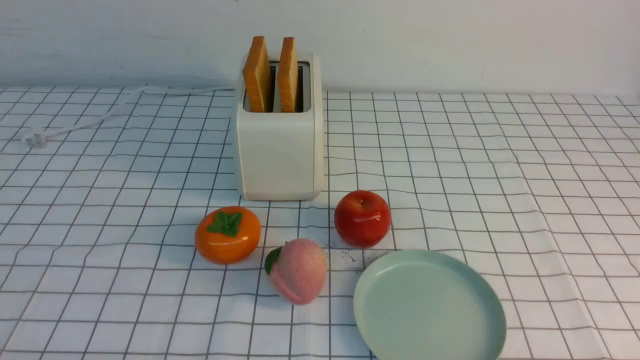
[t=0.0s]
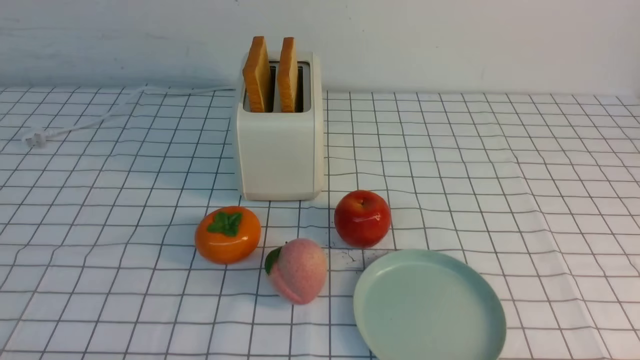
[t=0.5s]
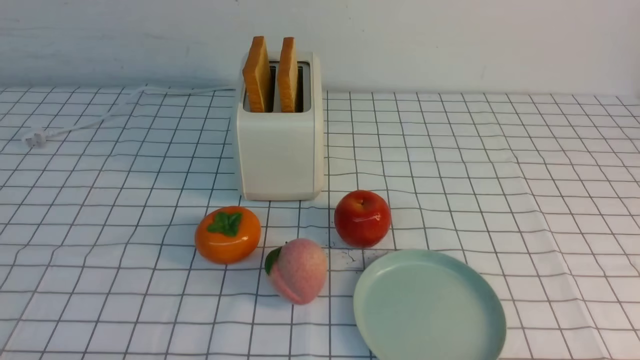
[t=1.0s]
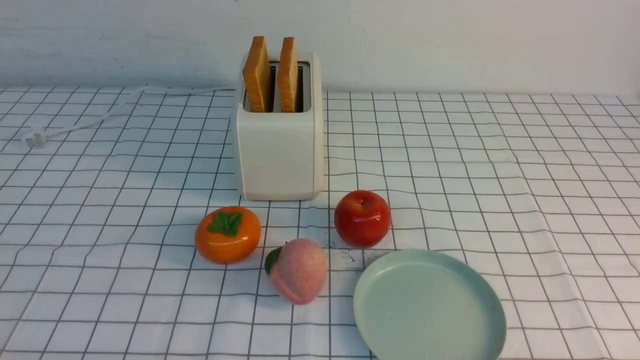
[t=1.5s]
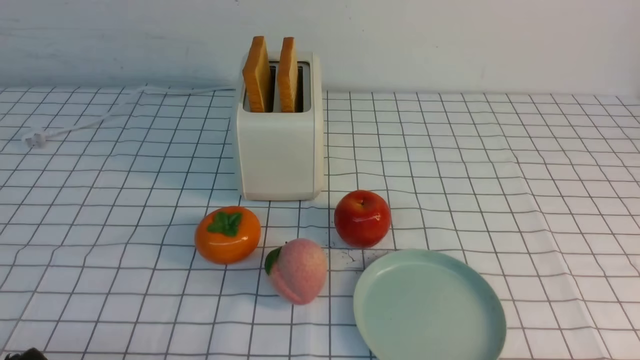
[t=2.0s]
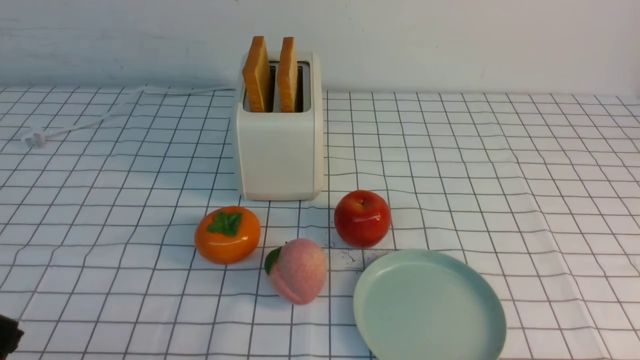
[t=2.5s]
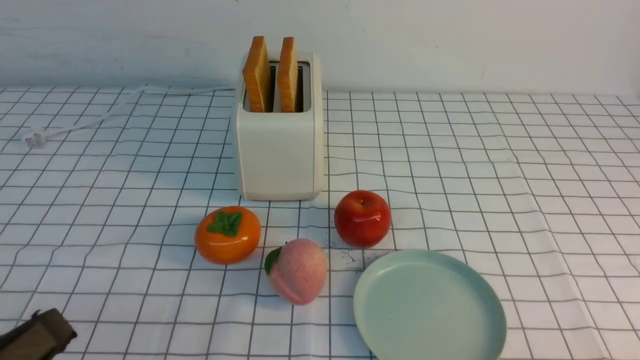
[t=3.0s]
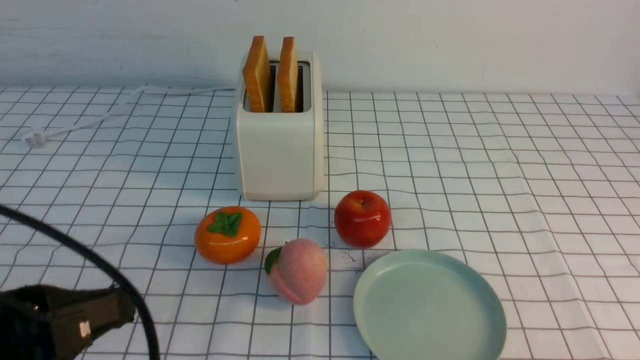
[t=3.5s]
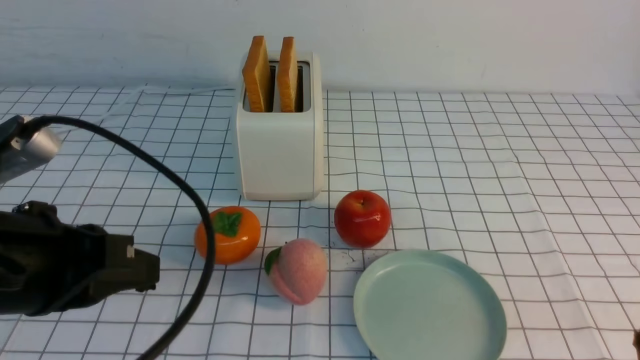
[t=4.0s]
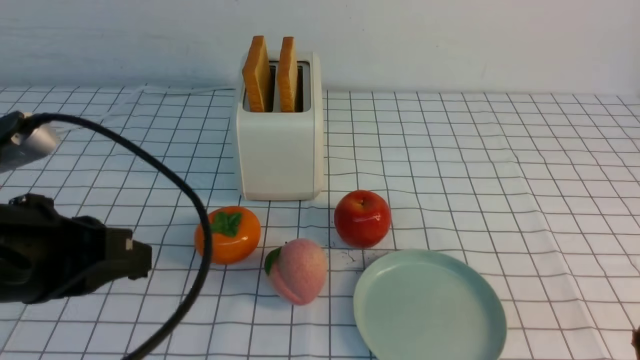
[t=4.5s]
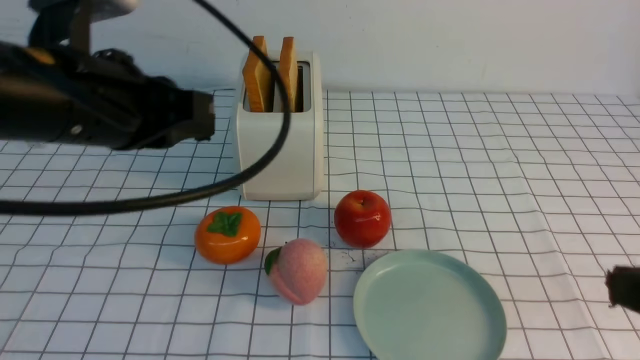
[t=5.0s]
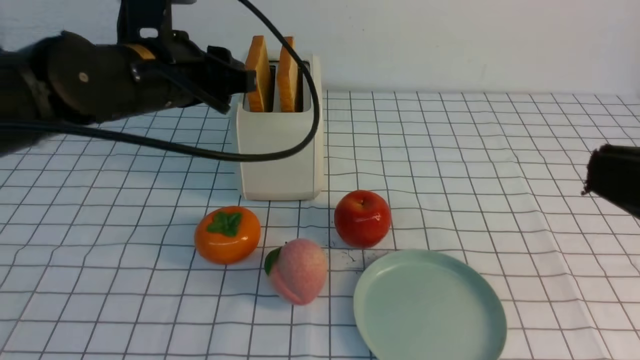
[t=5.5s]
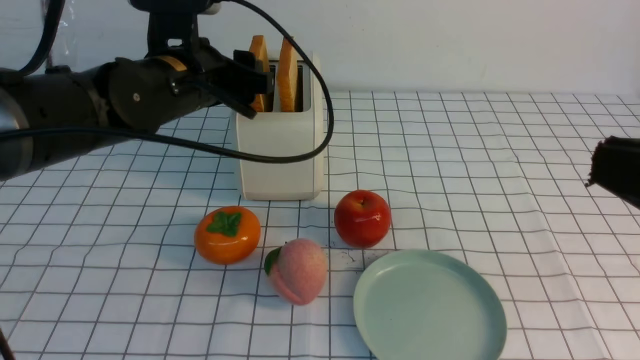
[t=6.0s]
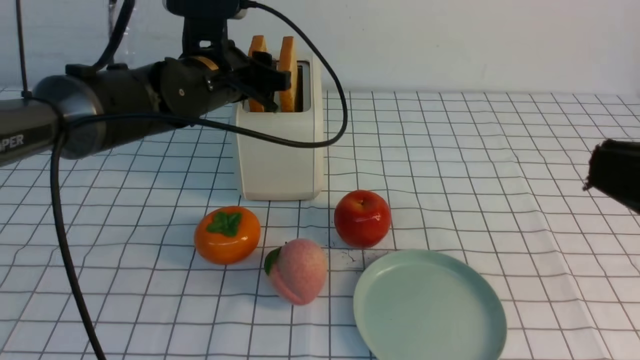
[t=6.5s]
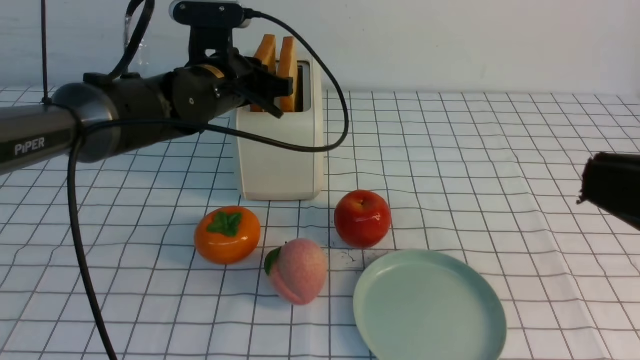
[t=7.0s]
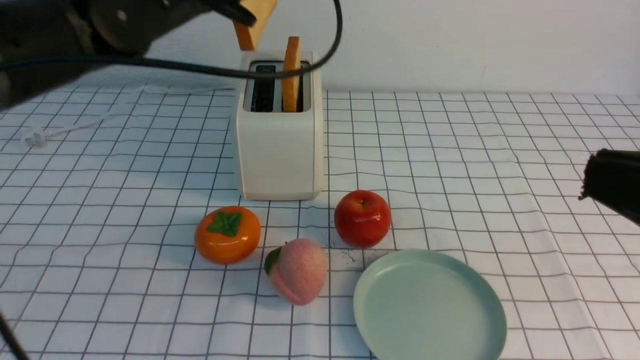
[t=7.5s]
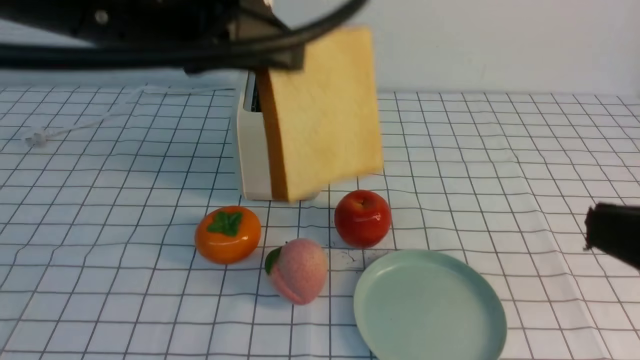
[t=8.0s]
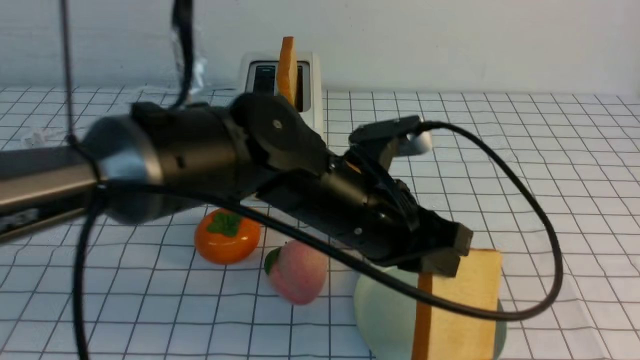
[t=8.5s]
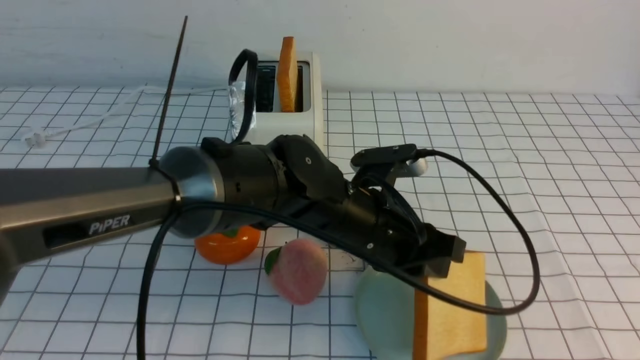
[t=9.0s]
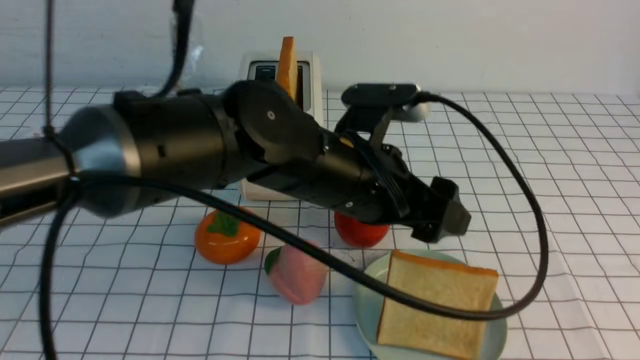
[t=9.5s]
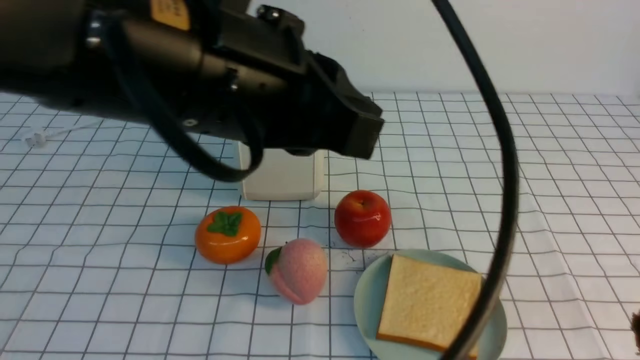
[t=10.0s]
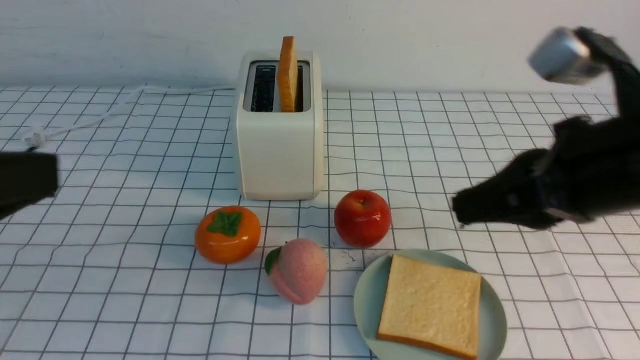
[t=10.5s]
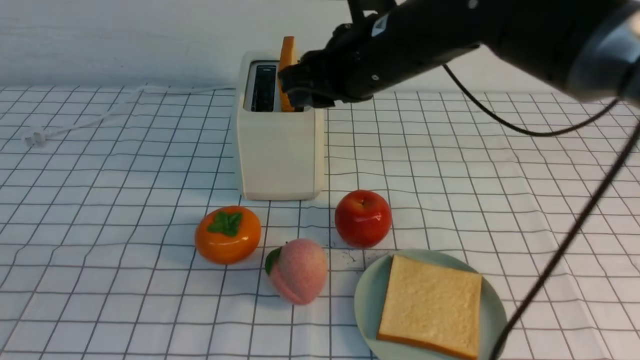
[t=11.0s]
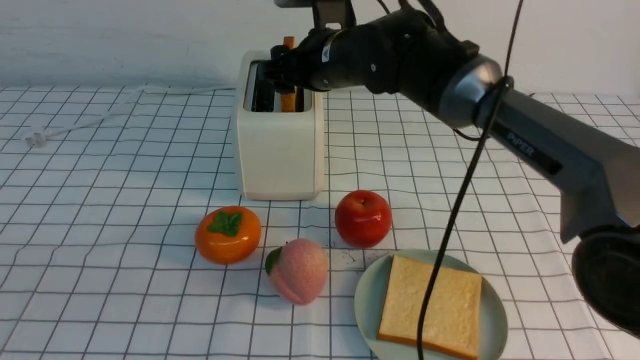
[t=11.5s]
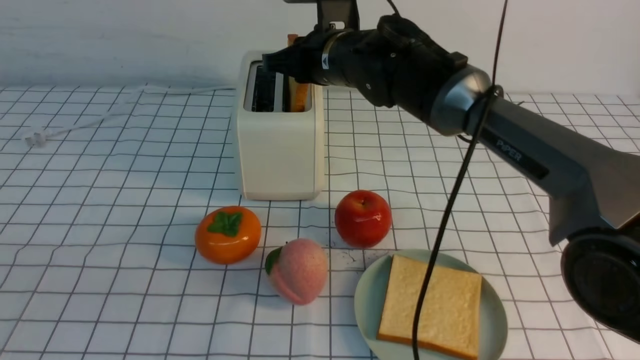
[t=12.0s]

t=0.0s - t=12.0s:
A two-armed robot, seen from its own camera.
Task of the whole recording: take toasted bread from bread machine on white checkered table place on plate.
Step, t=0.0s - t=7.0s: use the left arm to take out a slice of bread.
Step, t=7.5s - t=9.5s: use the left arm to put a slice of bread into the empty plate.
t=2.0s - t=4.0s: The left gripper goes about 15 cm upward and forward.
t=4.0s - t=6.0s: The right gripper heads upward, covering some 5 cm. Meanwhile the left gripper shifts some 20 cm forward, and opens up.
t=6.0s - t=8.0s: The left gripper shifts about 15 cm backward and upward, and closes up.
t=8.0s - t=10.0s: The left gripper travels backward by about 5 cm, travels downward and back again, some 20 cm each way, and opens and closes again.
t=10.0s - t=12.0s: The left gripper travels to the left and backward by some 20 cm, while the right gripper goes about 40 cm forward and to the left, and opens, then closes once more.

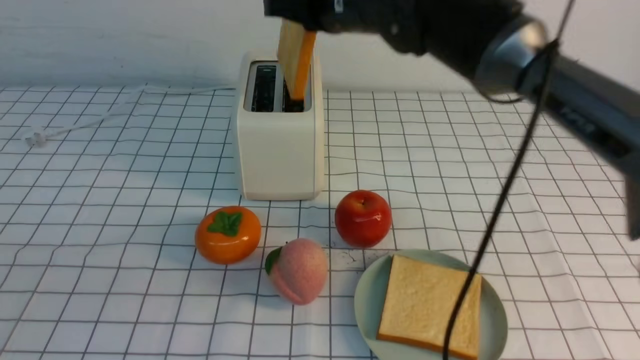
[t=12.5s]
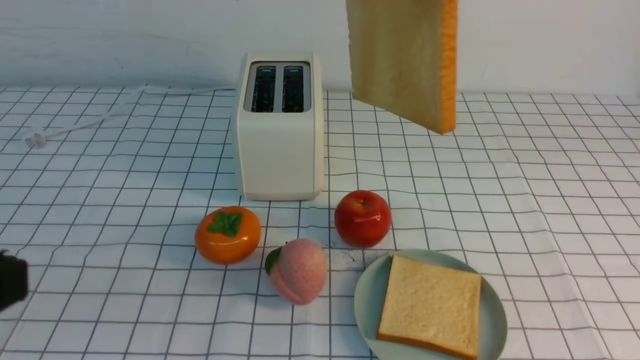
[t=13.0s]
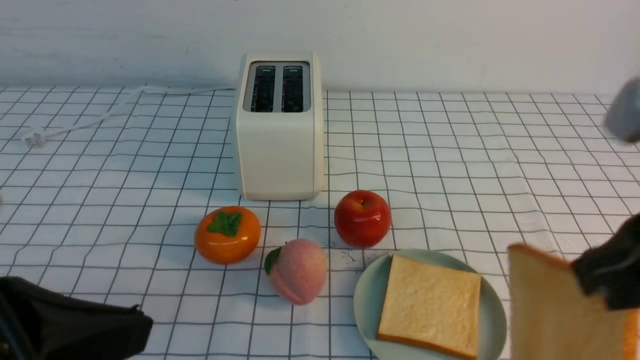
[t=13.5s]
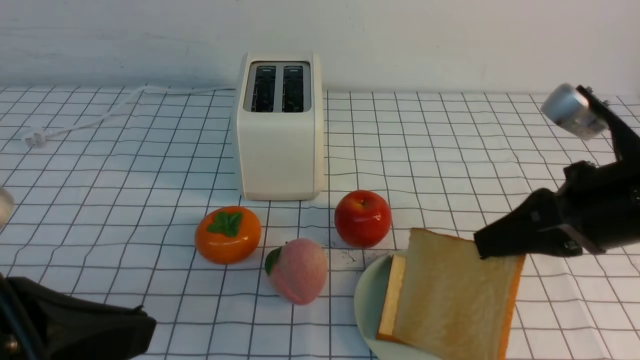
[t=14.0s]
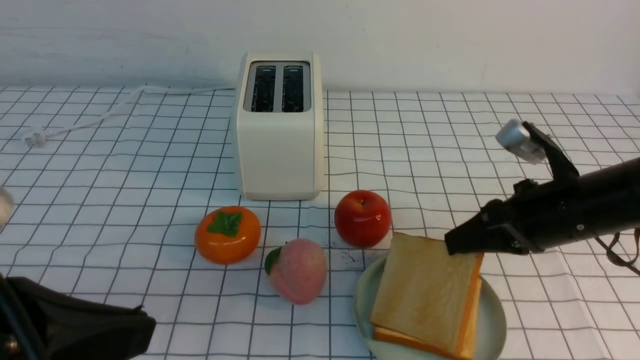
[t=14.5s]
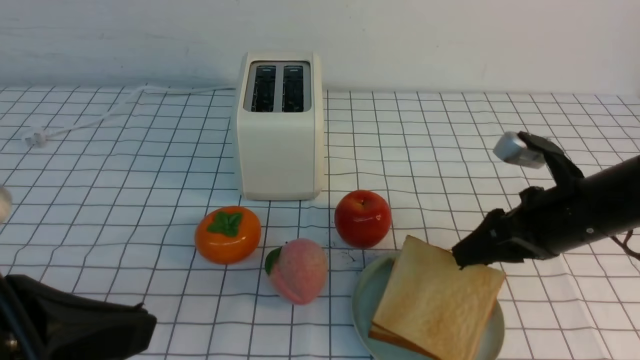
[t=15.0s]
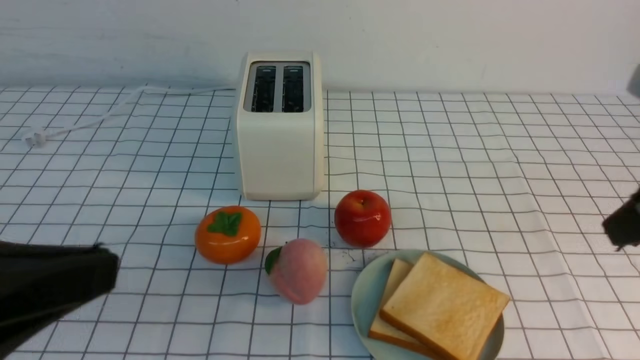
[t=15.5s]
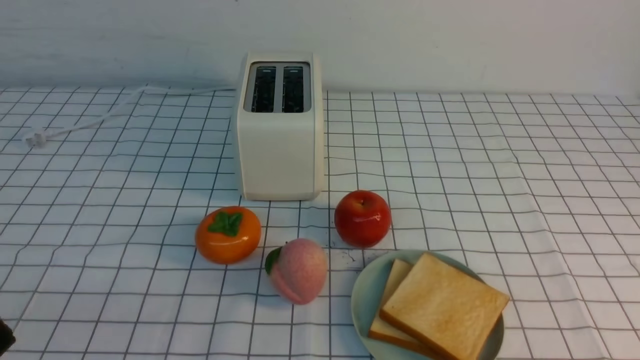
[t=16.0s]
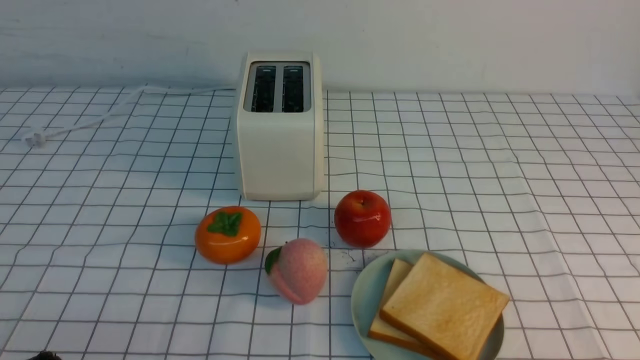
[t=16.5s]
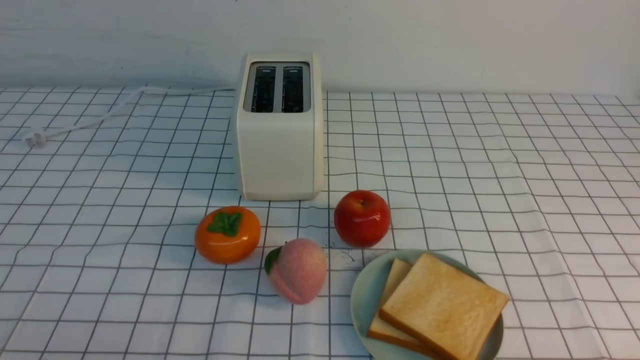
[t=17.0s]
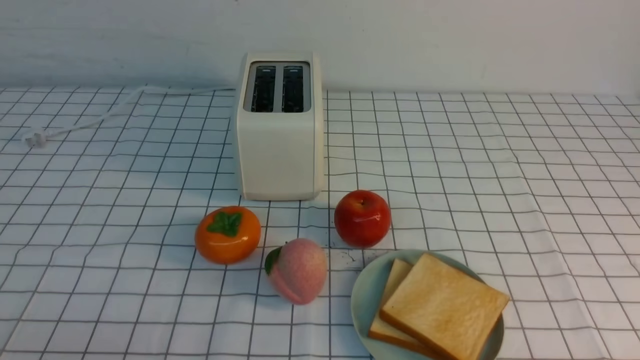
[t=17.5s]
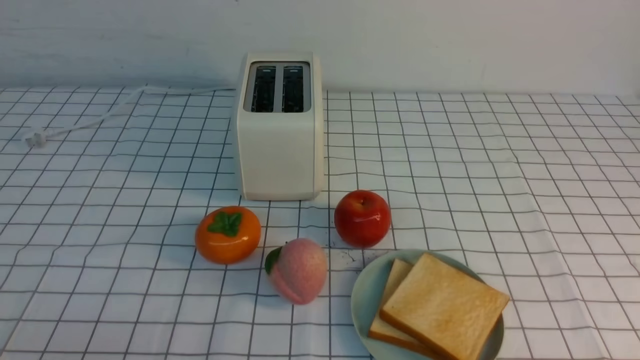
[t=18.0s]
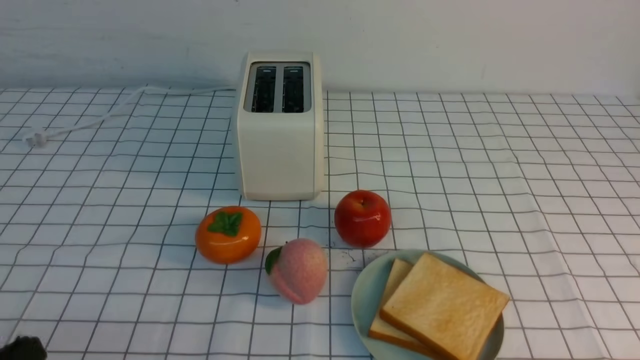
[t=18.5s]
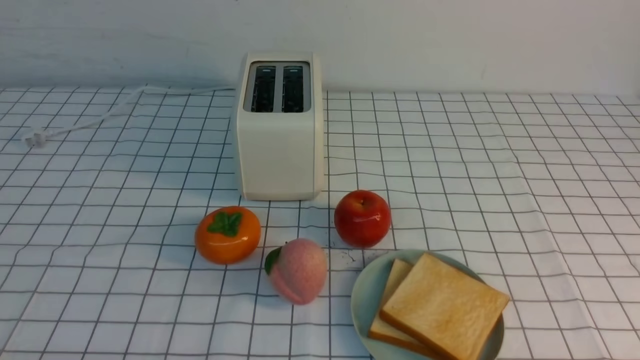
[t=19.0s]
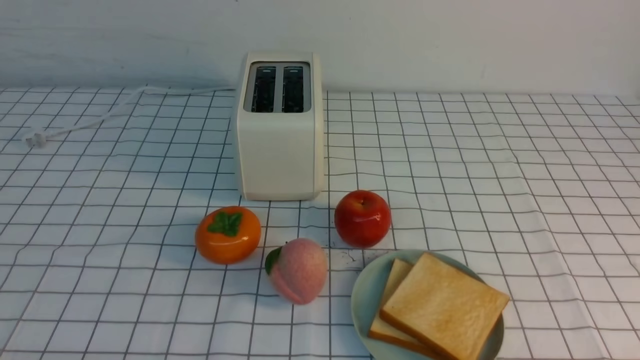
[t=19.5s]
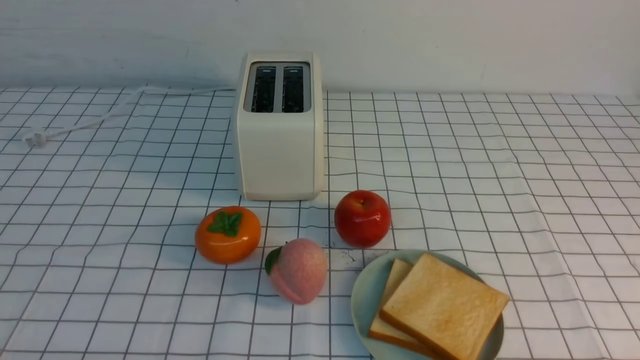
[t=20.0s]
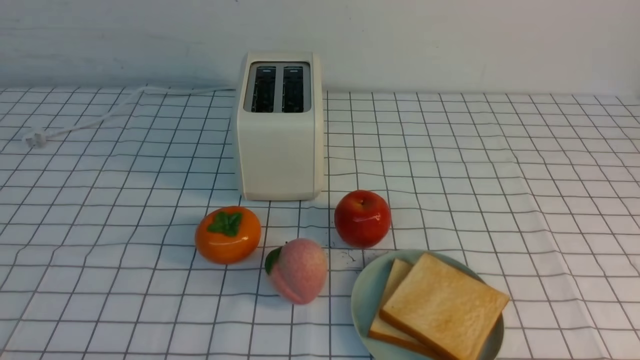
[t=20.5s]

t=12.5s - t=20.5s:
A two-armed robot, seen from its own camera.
Task of the whole recording: take toasted bread from bread machine on white checkered table place on plate.
Step, t=13.0s - t=15.0s: use the right arm to put a slice of bread into the plate.
t=12.5s - t=14.5s: The left gripper shifts about 5 cm to the right; the right gripper shifts about 30 cm to the right, downward and backward.
t=14.5s - t=16.5s: The left gripper goes approximately 10 cm downward and to the left. The right gripper moves backward, roughly 25 cm, and opens, then closes again.
